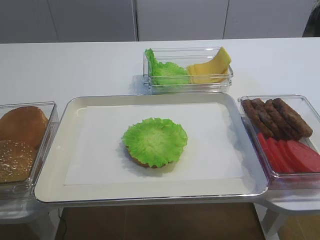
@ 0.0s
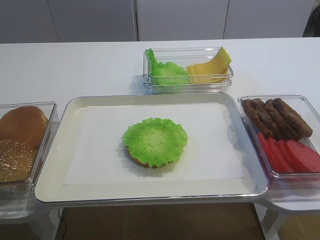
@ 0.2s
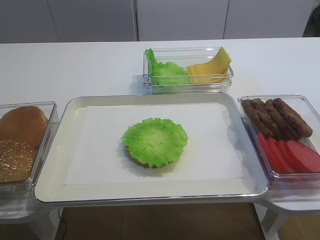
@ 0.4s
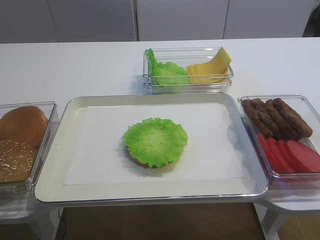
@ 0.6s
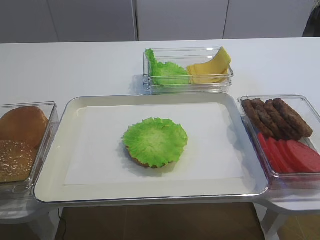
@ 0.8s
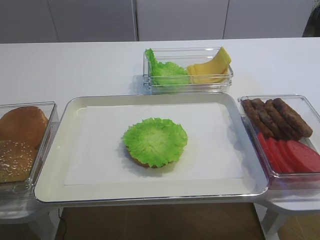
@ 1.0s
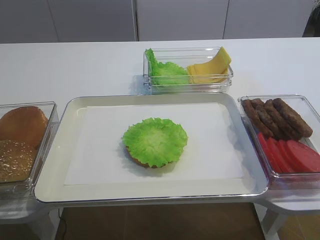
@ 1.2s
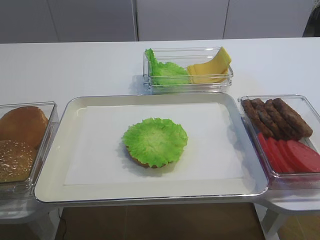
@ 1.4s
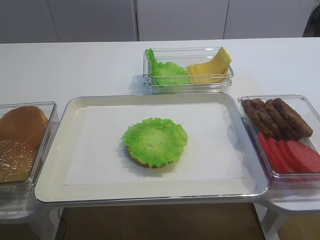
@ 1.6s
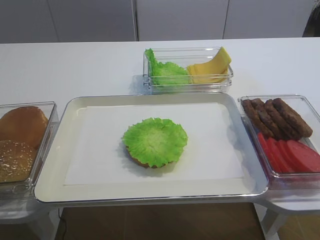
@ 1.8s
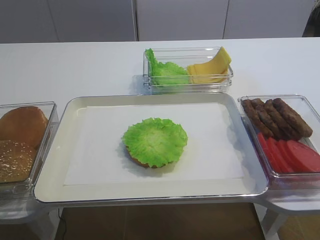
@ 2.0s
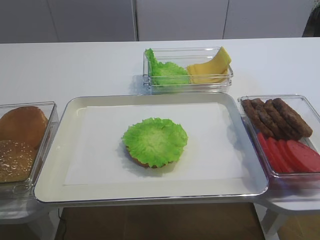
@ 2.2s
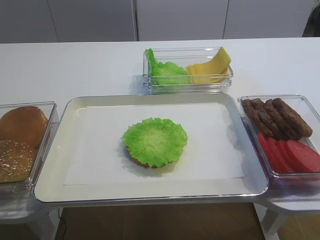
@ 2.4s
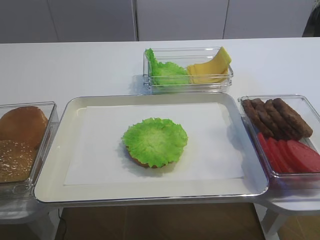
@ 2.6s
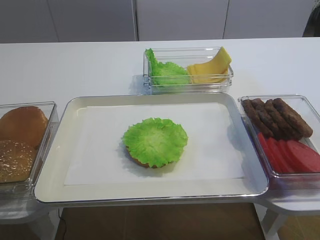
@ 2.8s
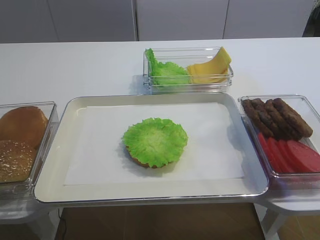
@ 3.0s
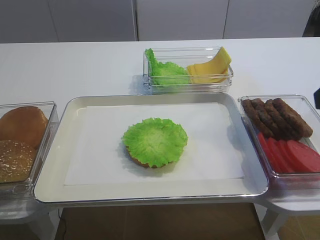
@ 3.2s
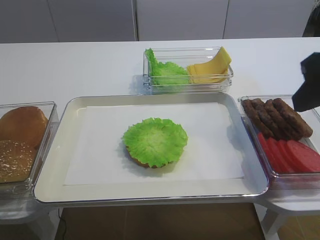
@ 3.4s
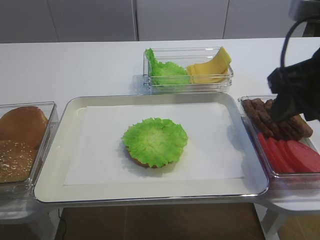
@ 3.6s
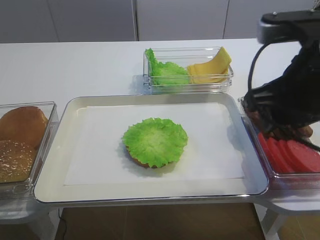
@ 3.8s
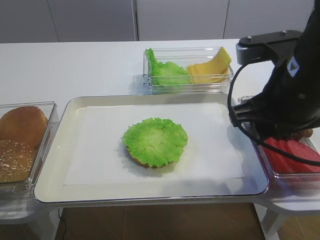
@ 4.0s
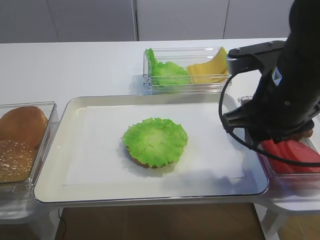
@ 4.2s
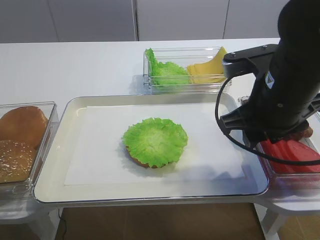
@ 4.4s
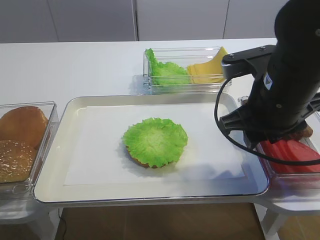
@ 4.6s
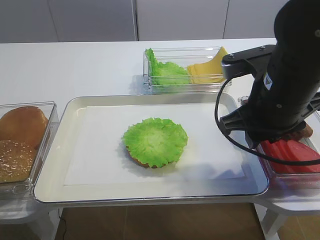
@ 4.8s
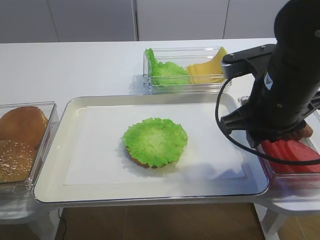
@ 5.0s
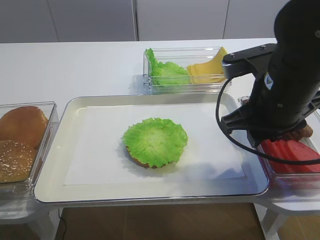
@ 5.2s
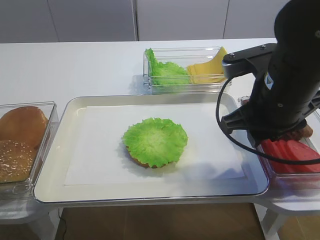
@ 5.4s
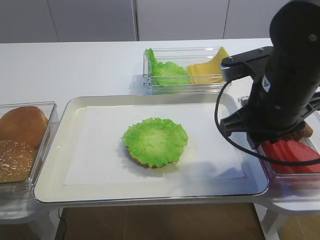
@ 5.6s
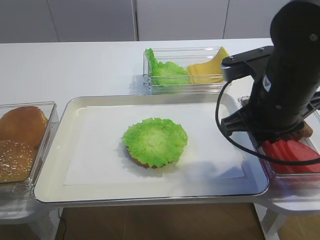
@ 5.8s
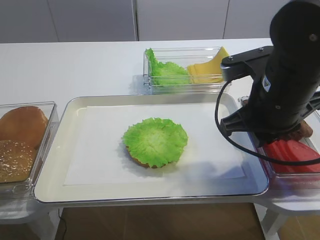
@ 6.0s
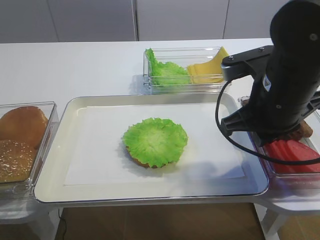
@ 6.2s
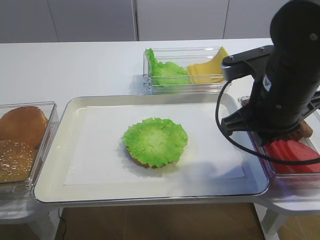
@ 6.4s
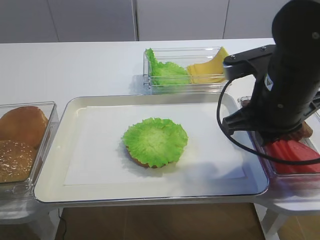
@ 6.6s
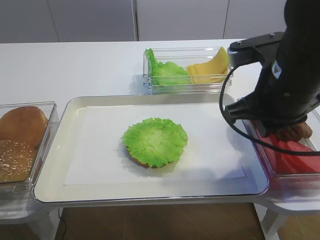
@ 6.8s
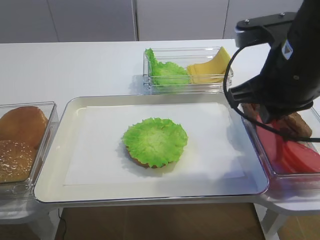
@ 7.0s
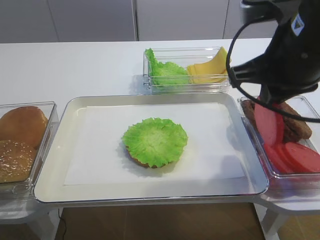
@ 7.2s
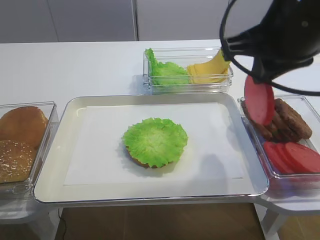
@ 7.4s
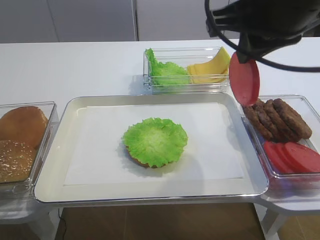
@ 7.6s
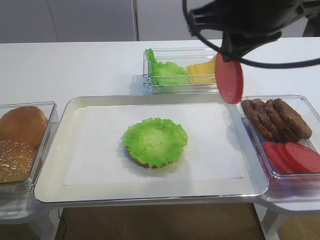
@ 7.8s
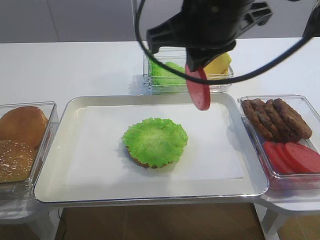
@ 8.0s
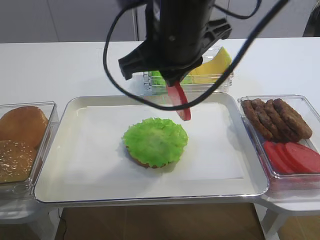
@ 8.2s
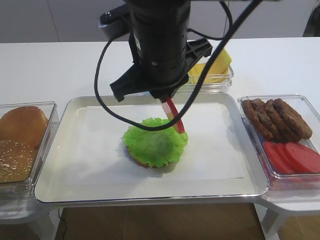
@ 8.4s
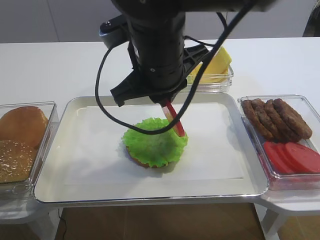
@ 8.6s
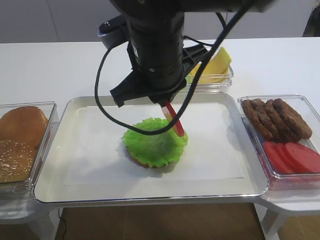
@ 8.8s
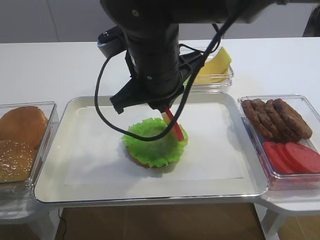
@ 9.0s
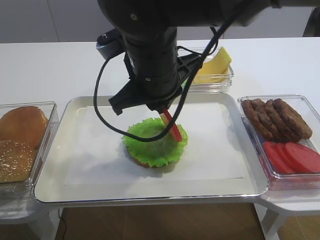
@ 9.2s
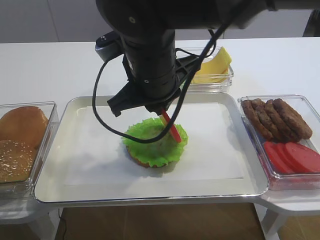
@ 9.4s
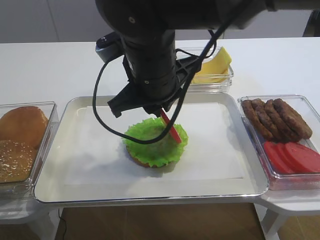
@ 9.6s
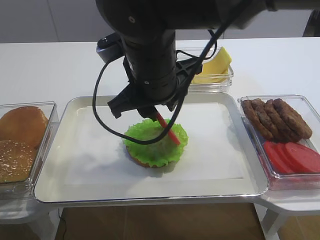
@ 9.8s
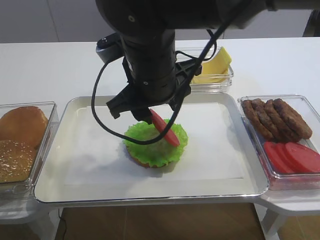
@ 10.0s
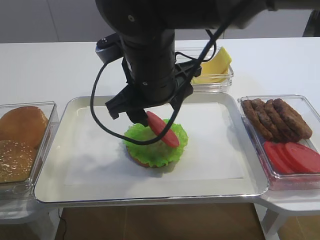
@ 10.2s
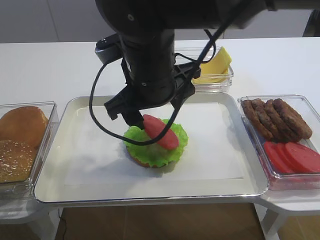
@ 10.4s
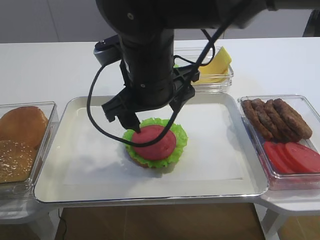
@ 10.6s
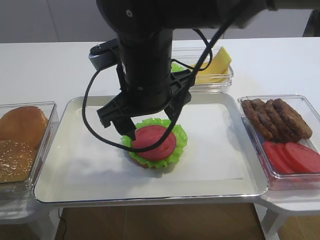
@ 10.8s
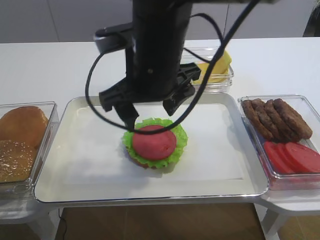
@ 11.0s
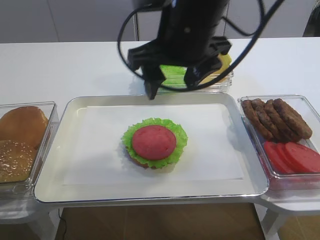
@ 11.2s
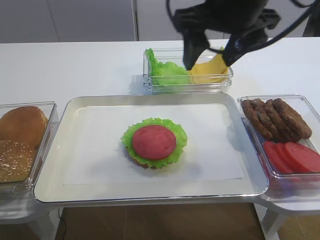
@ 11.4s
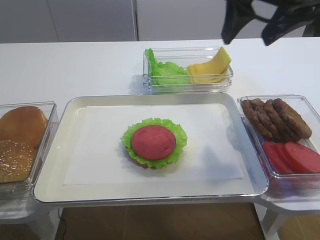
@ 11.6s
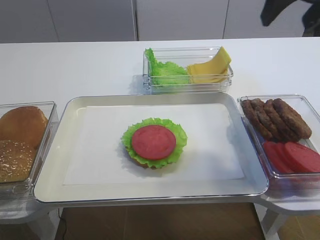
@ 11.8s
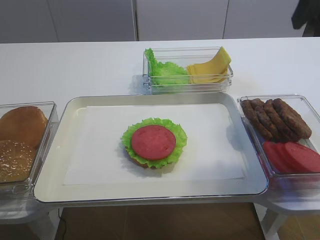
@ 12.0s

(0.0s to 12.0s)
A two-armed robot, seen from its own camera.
Step, 0.0s - 6.8s: Pick up the tomato slice with the right gripper.
Step, 7.2s - 10.8s: Place the tomato slice on the lettuce leaf with the right gripper.
3.0s - 4.4s: The right gripper is displaced to the left, downward and forward by approximately 15 cm.
4.4s - 6.0s: The right gripper closes its fingers.
6.0s - 7.6s: The right gripper goes roughly 15 cm upward.
7.6s - 9.0s: The right gripper shifts about 15 cm to the left and downward.
9.0s - 10.4s: The right gripper opens.
10.4s - 12.0s: The right gripper heads to the right and upward, covering approximately 30 cm.

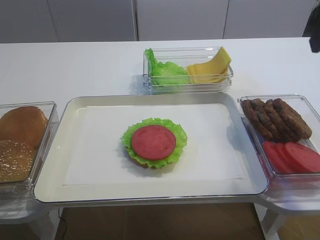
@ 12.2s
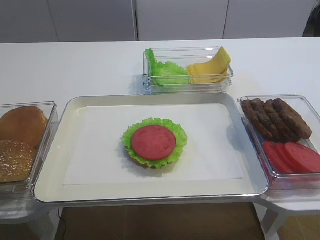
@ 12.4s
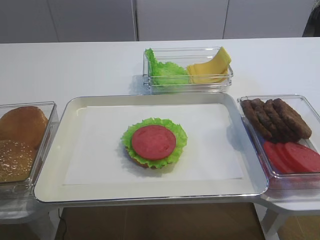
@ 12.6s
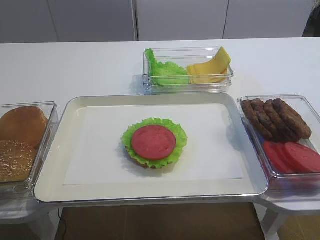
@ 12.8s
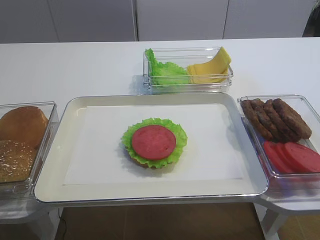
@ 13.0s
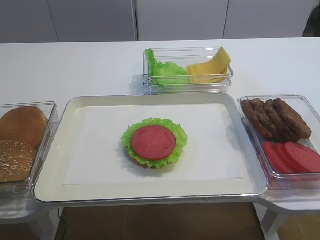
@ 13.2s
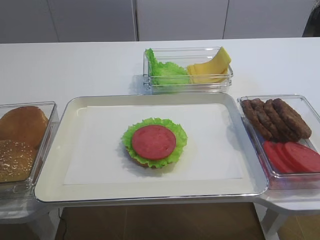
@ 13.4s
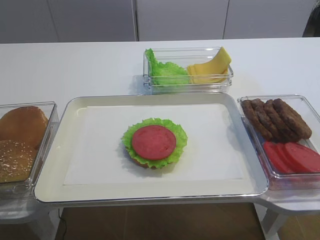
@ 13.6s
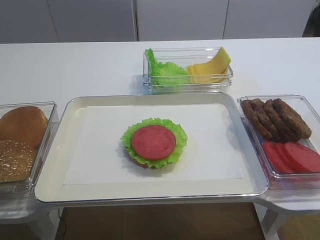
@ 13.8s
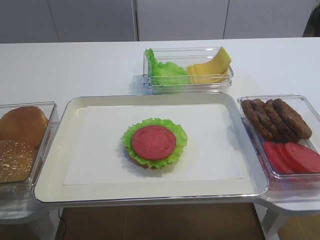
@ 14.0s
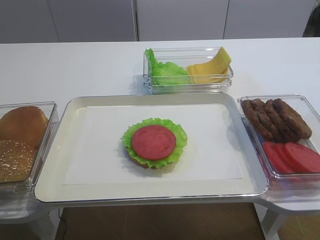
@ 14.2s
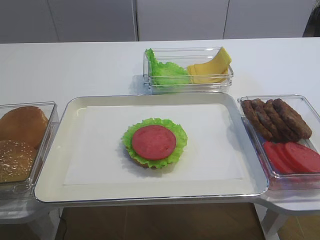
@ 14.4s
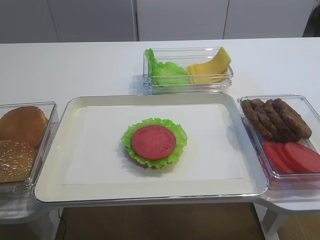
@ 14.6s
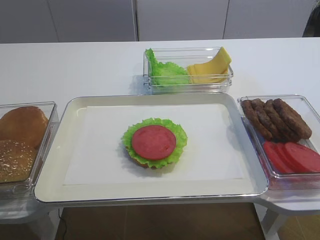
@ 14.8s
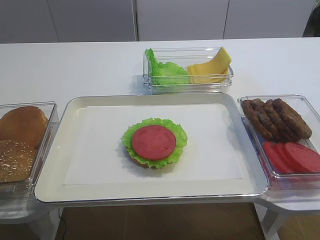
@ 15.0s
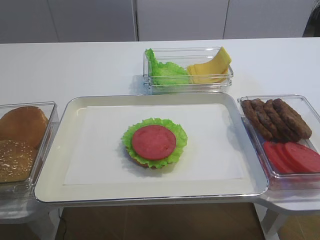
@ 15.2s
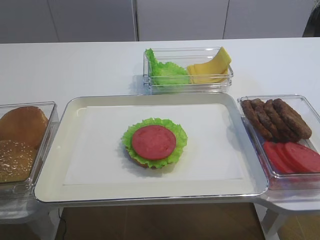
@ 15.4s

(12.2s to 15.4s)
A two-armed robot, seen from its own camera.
12.2s - 13.8s: The right gripper heads backward and downward, covering about 25 cm.
13.8s - 15.4s: Both grippers stay about where they are.
